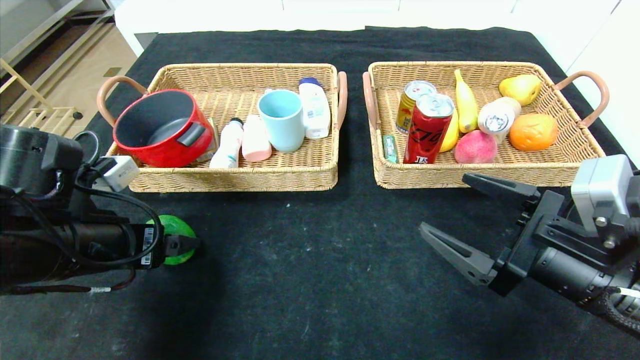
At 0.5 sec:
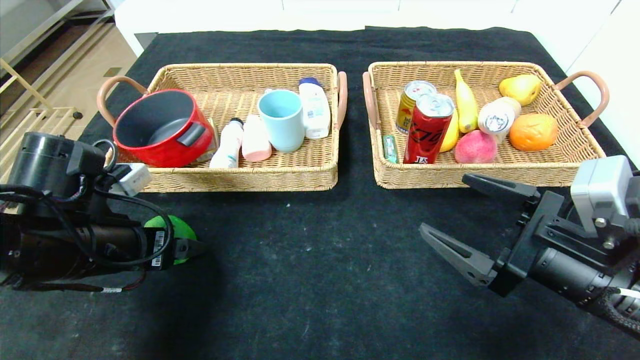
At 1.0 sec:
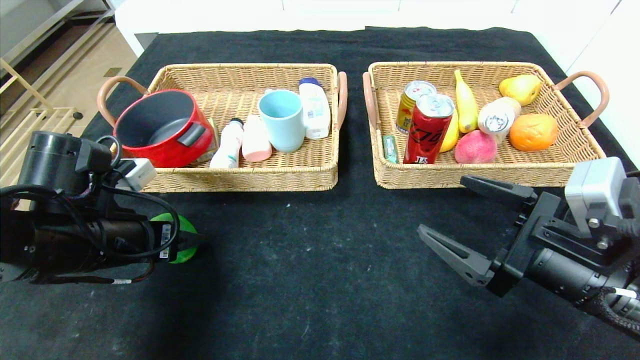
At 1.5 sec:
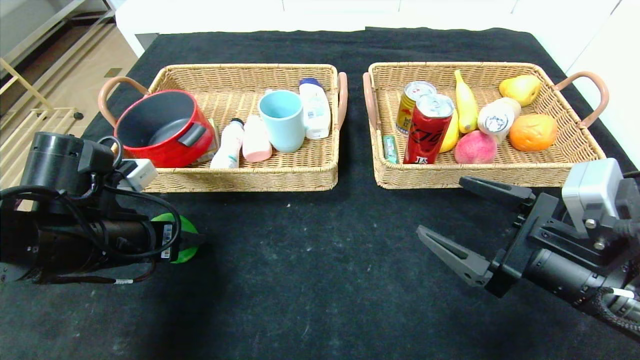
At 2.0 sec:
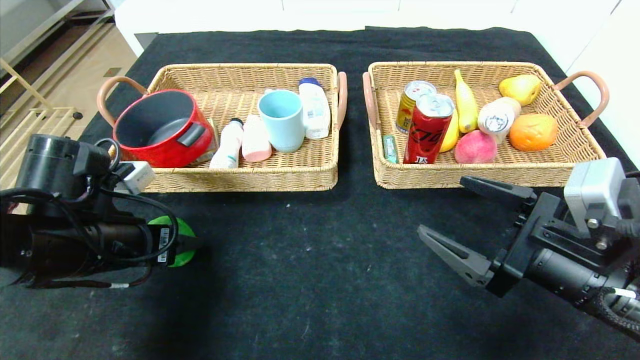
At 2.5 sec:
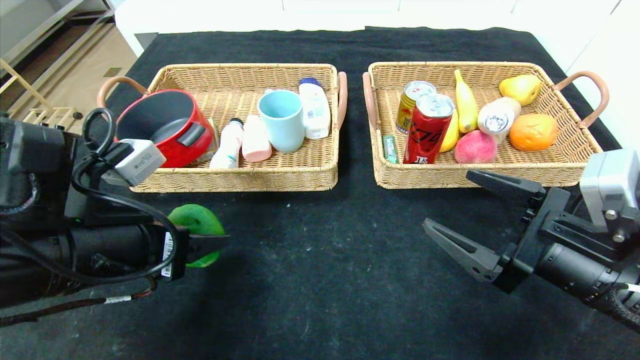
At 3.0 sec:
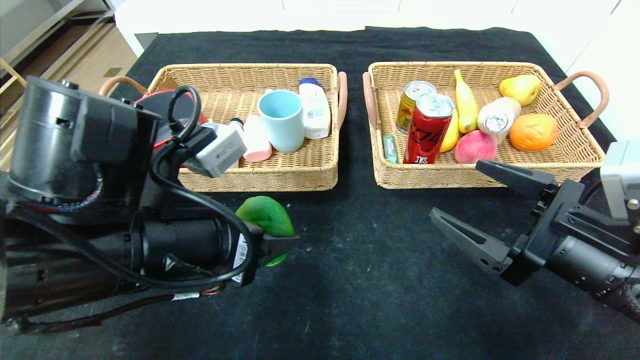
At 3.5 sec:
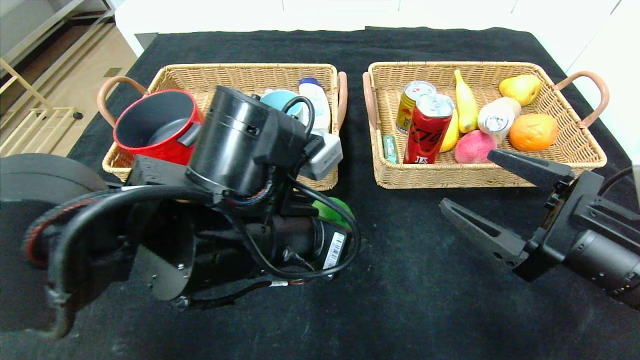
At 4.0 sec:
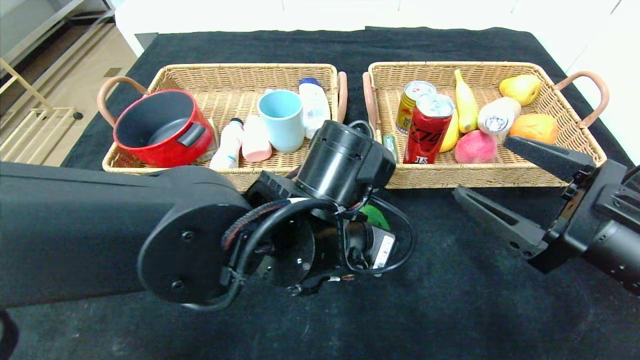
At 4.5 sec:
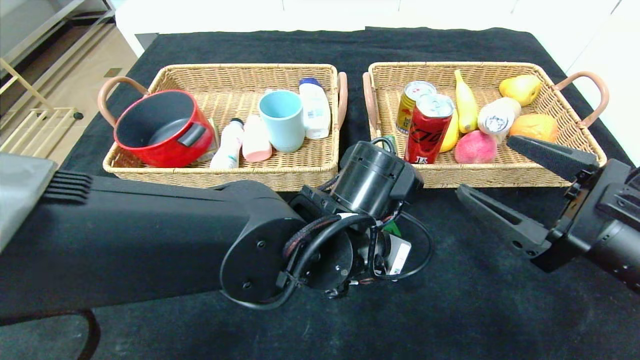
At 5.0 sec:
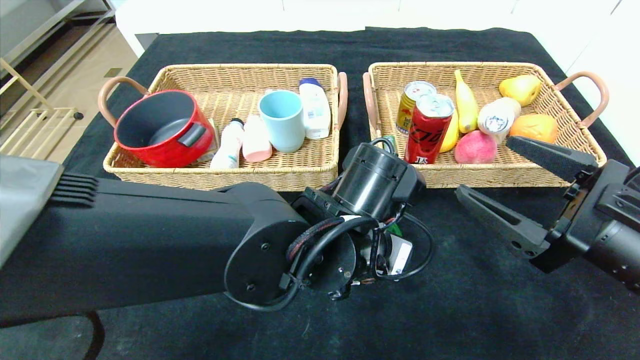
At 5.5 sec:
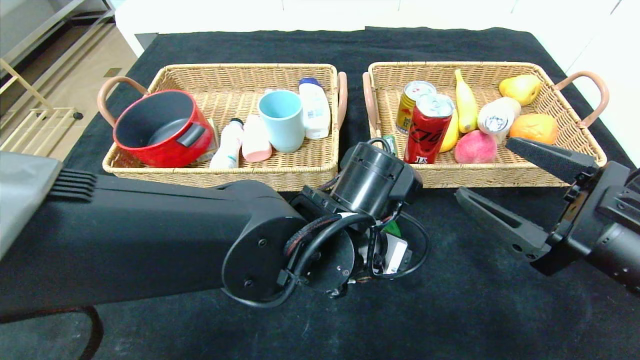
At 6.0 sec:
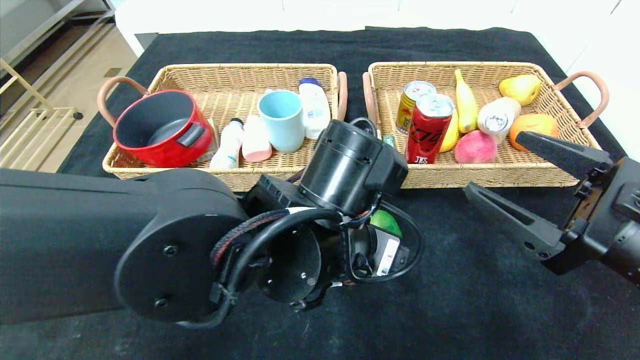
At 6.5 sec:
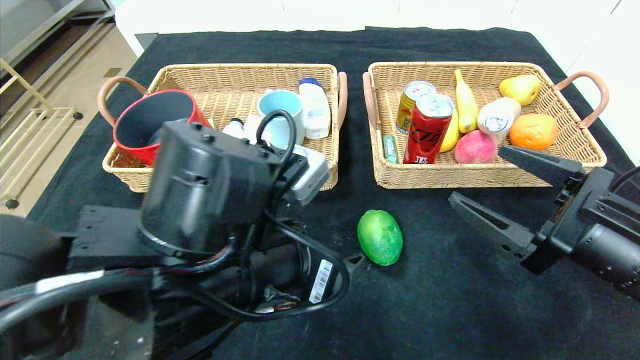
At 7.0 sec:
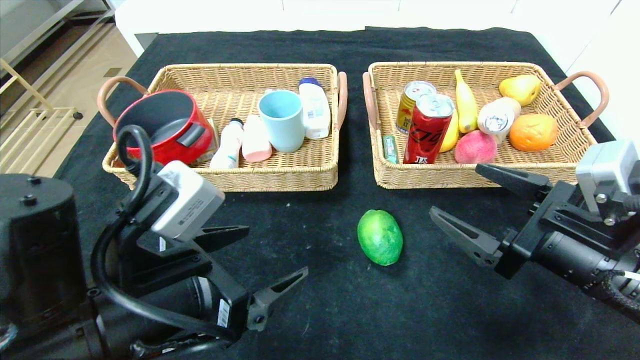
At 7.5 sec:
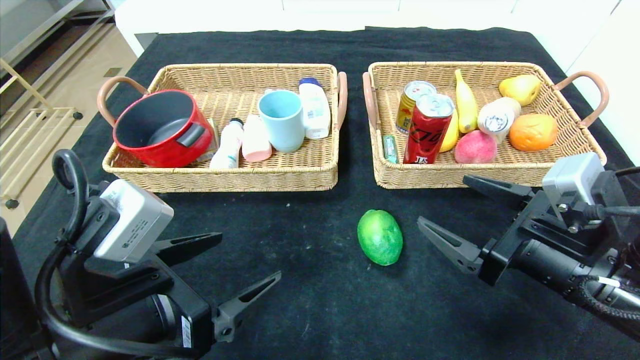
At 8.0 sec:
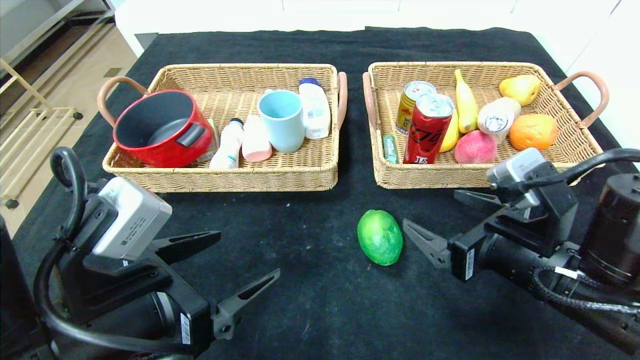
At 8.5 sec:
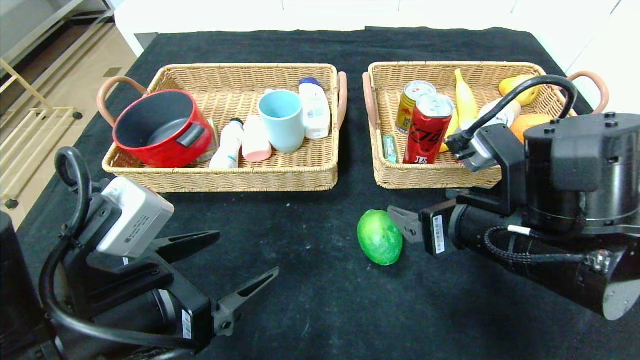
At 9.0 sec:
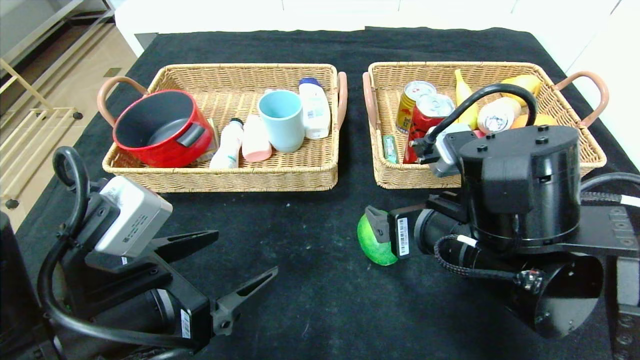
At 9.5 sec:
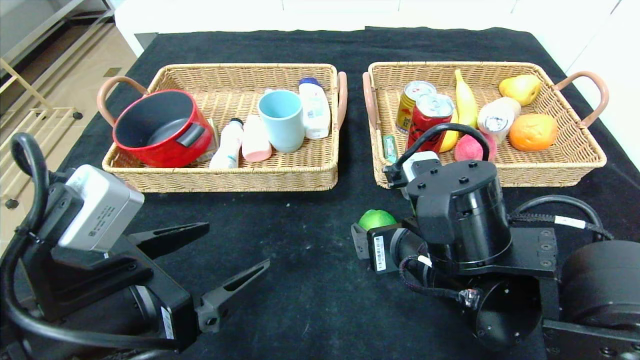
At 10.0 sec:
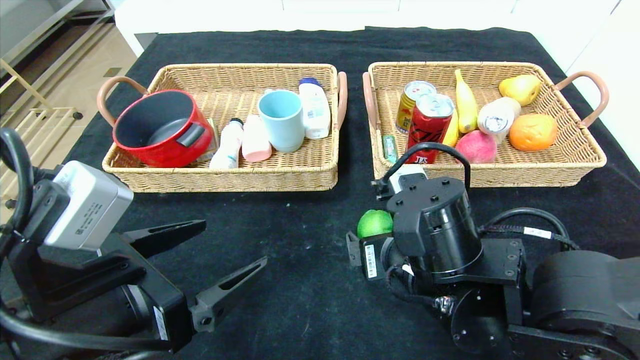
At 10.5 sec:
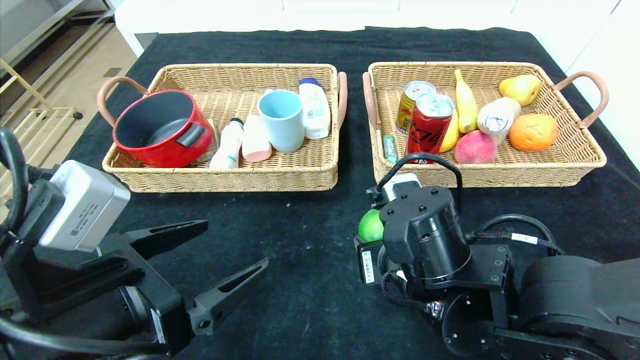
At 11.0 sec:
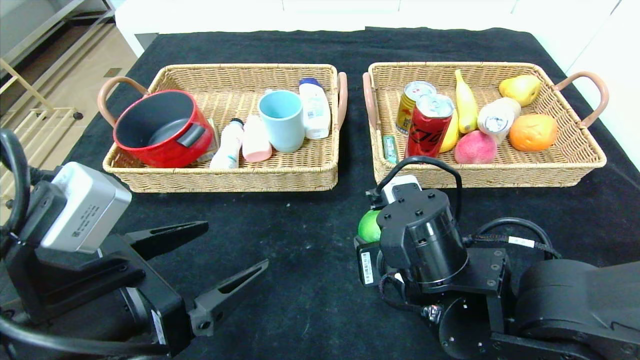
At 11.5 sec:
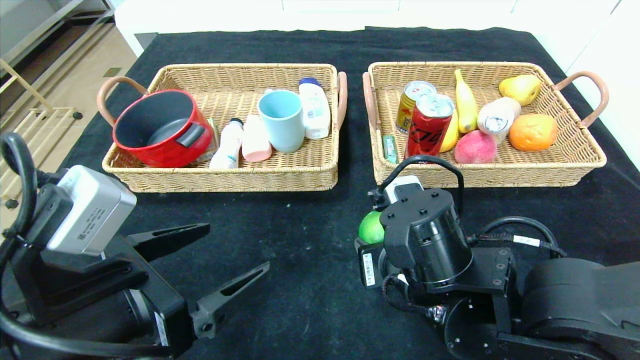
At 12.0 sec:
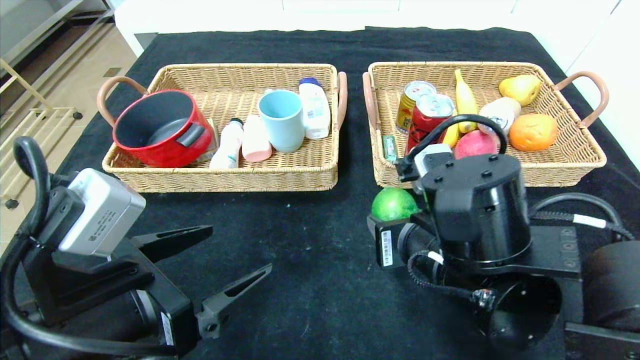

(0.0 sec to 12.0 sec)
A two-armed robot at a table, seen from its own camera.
Step, 0.0 sec - 6.0 sec: Place the green lemon in the center of the table.
0.0 sec - 2.0 sec: The grippers move only a little.
2.0 sec - 4.0 sec: The left gripper travels to the right by about 25 cm.
4.0 sec - 6.0 sec: There are only small adjustments of the grippers.
6.0 sec - 8.0 sec: The left gripper goes some 20 cm to the left and backward, while the right gripper moves to the left, about 5 cm.
8.0 sec - 10.0 sec: The right gripper is displaced to the left by approximately 10 cm.
10.0 sec - 12.0 sec: The right gripper closes.

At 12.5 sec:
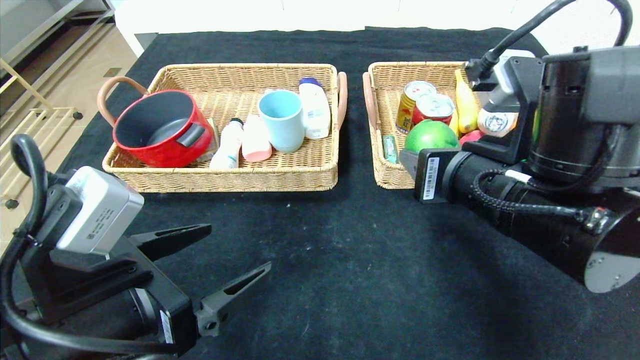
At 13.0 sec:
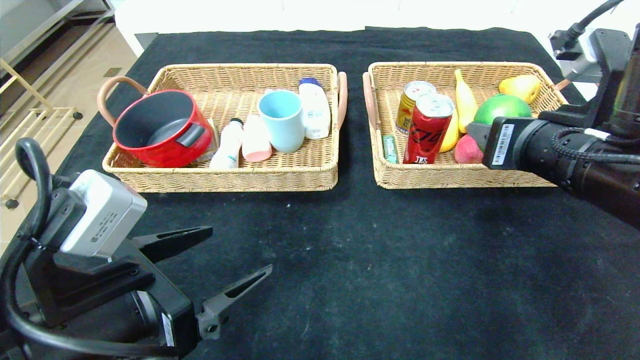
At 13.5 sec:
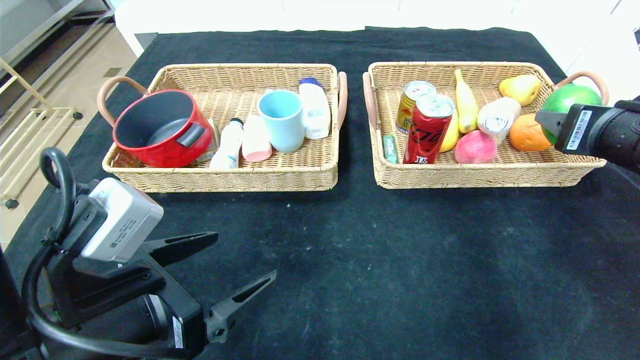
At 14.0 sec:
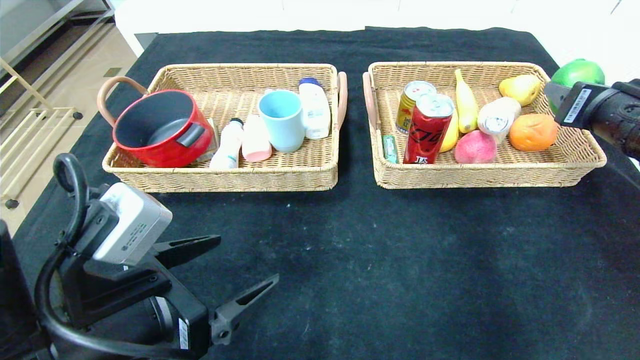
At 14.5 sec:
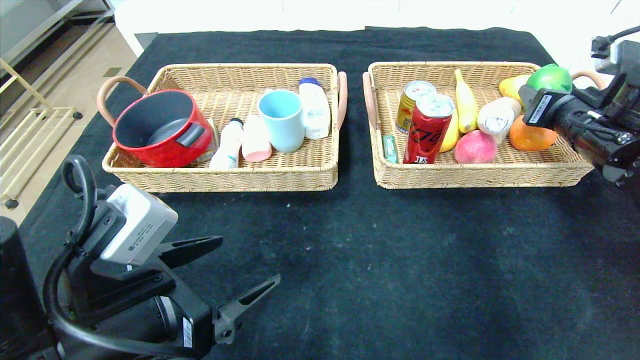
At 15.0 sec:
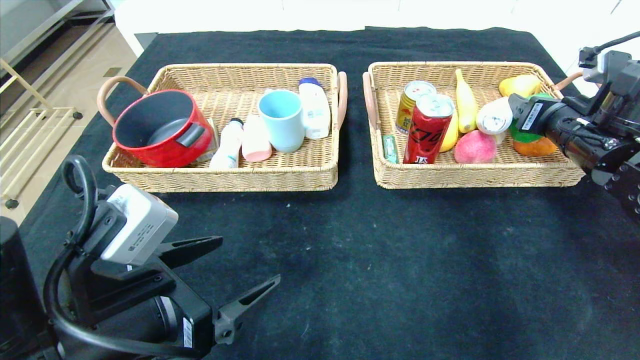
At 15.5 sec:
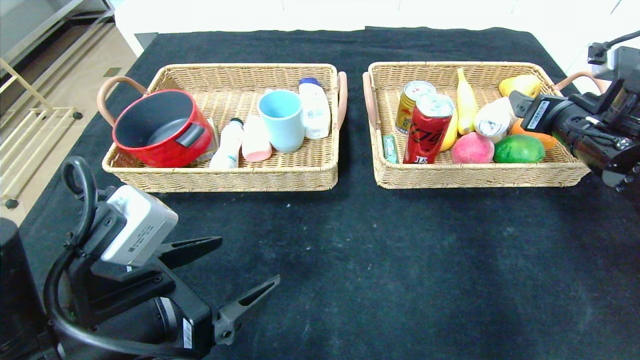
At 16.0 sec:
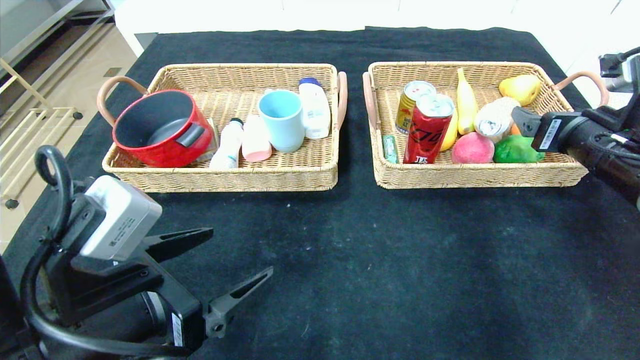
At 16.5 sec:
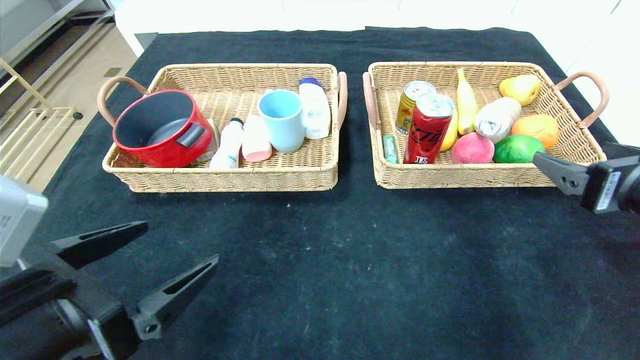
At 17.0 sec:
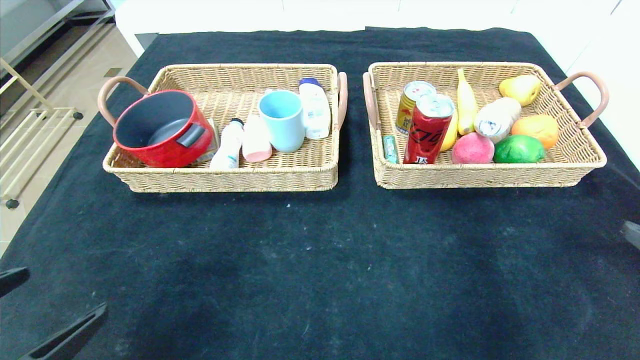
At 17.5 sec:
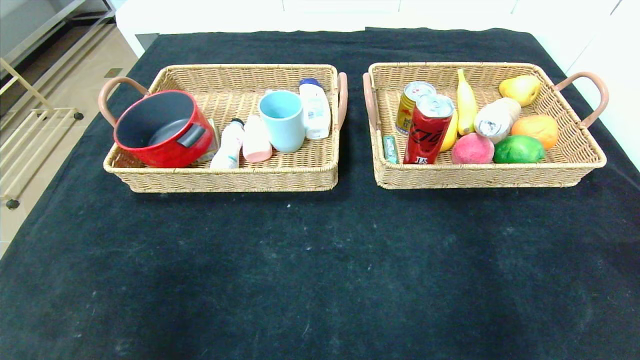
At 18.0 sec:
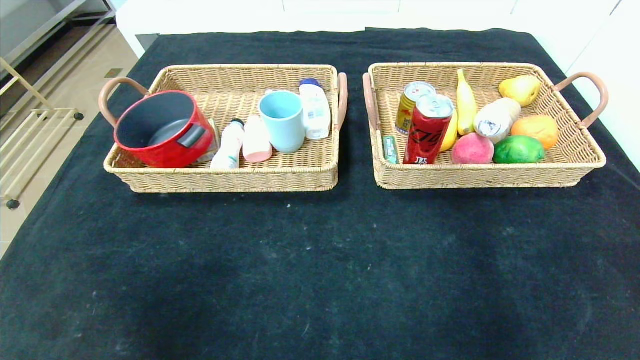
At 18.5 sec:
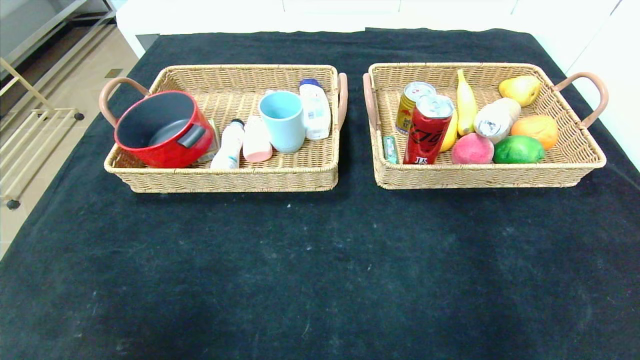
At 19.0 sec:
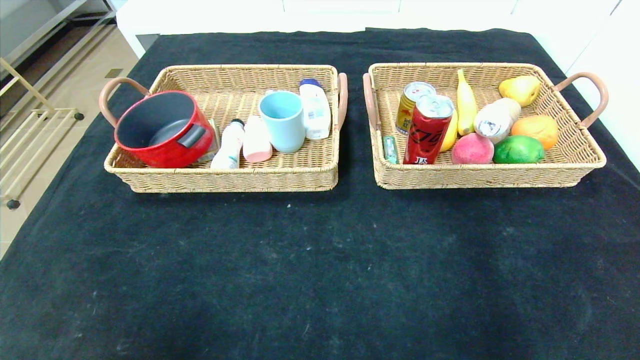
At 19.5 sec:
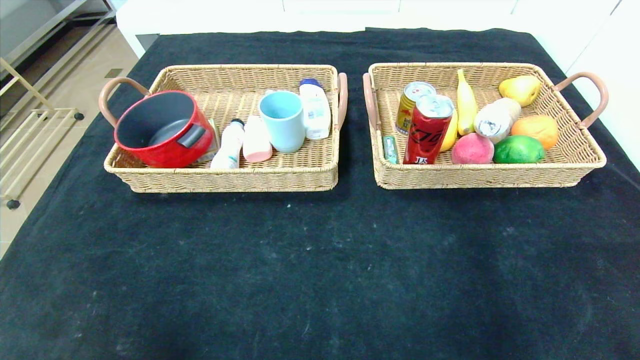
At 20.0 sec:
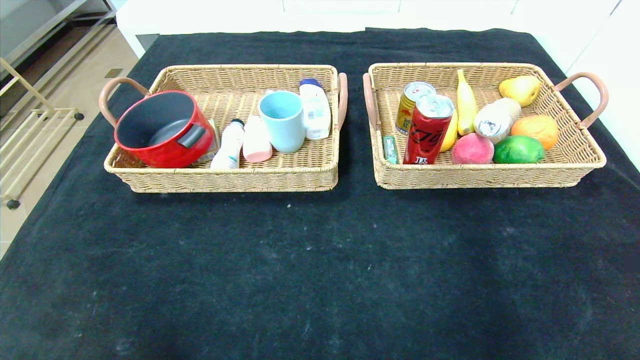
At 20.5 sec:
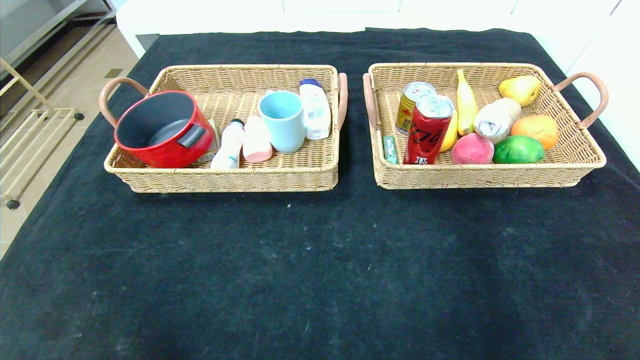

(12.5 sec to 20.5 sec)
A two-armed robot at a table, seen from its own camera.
Step, 12.5 sec - 15.0 sec: Grasp the green lemon and put it in the right basket.
12.5 sec - 14.5 sec: The right gripper heads to the right and forward, covering about 20 cm.
14.5 sec - 16.5 sec: The right gripper heads backward, covering approximately 15 cm, and opens up; the left gripper changes place by roughly 5 cm.
16.5 sec - 18.5 sec: The left gripper moves backward and to the left, about 15 cm. Meanwhile the right gripper shifts roughly 25 cm backward.
